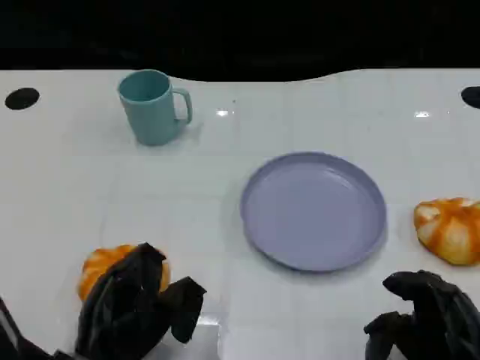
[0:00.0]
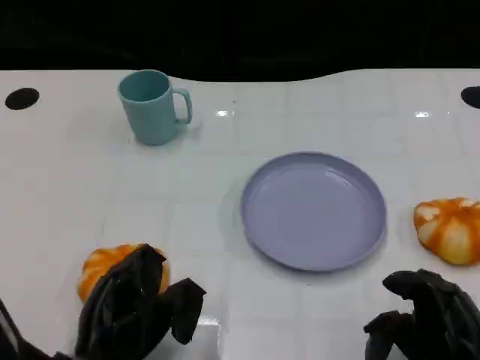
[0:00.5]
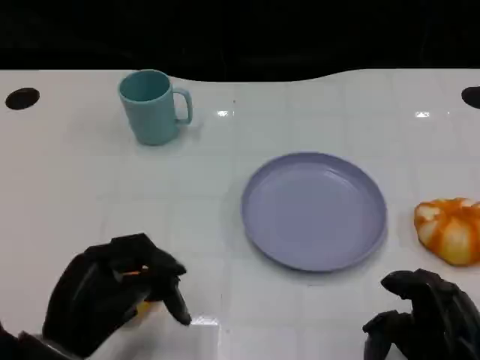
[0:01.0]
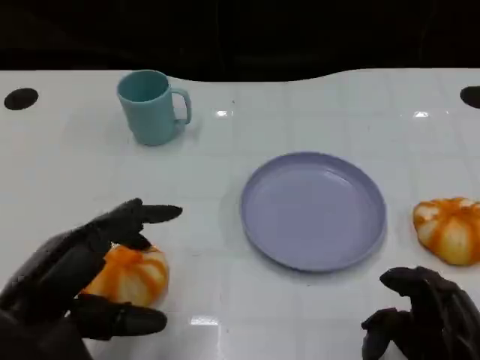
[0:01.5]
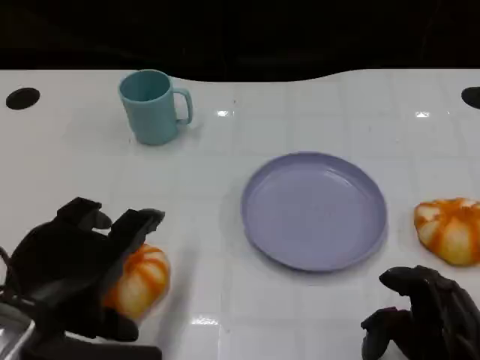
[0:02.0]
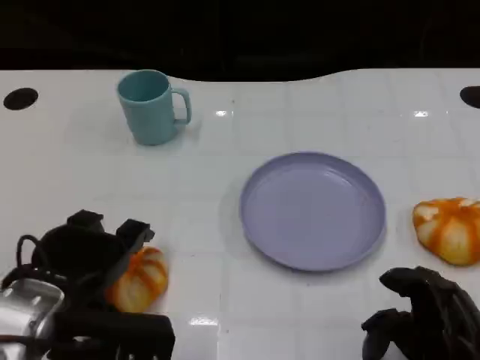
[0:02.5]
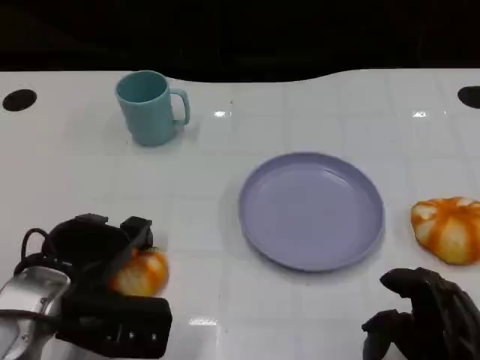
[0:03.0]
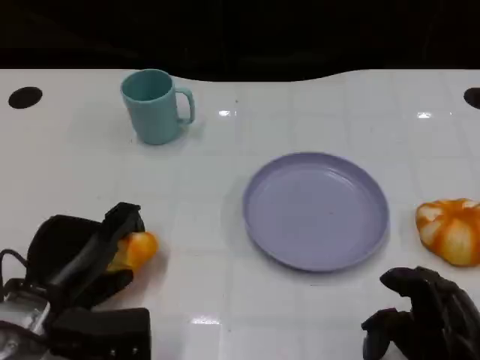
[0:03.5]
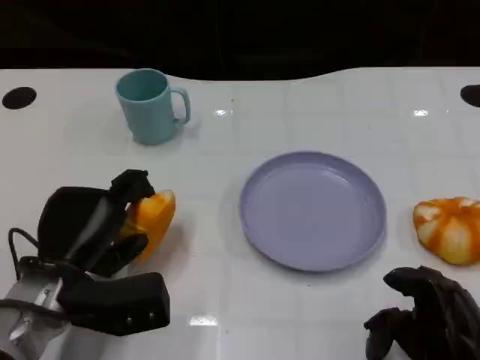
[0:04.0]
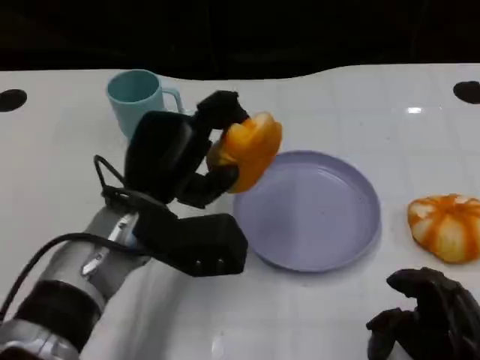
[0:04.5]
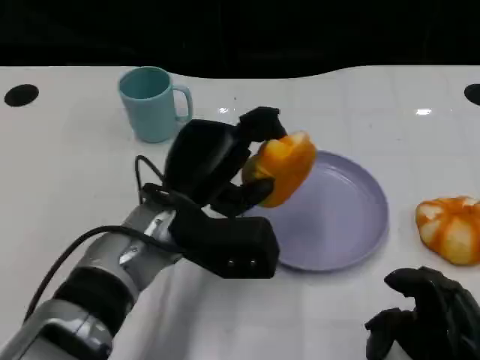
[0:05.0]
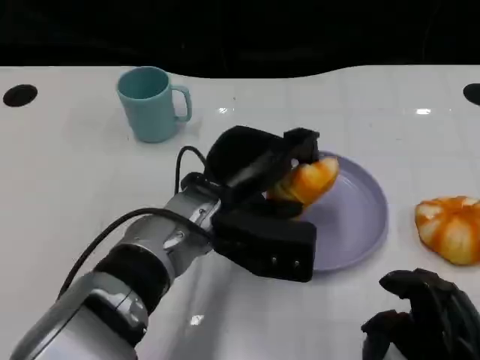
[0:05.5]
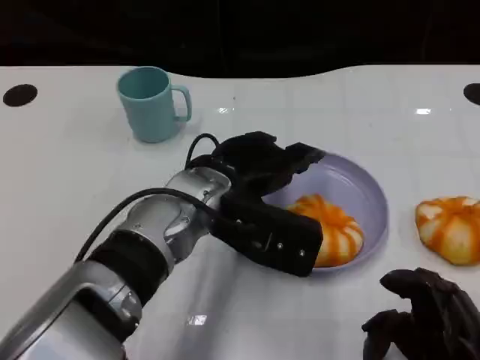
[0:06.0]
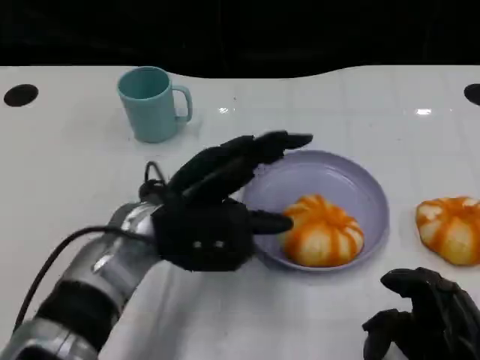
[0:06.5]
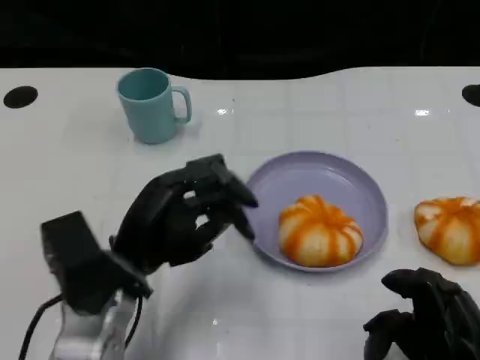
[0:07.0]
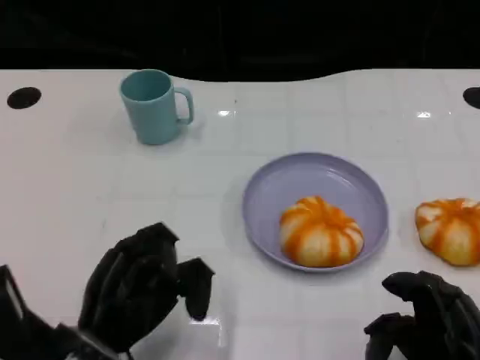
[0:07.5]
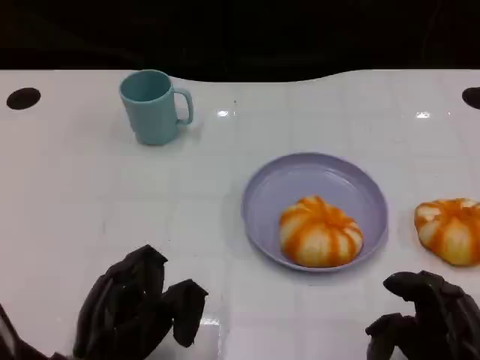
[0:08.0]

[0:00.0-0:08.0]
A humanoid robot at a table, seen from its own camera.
Task of the whole recording: Grasp the bread from the table and place it into the plate.
0:00.0 to 0:02.0: The left hand is displaced upward by approximately 10 cm.
0:02.0 to 0:04.0: The left hand moves downward and forward, some 10 cm.
0:04.0 to 0:06.0: The left hand moves to the right and upward, roughly 15 cm.
0:06.0 to 0:08.0: The left hand travels backward, to the left and downward by roughly 20 cm.

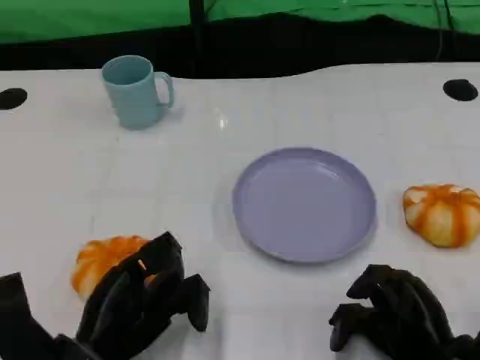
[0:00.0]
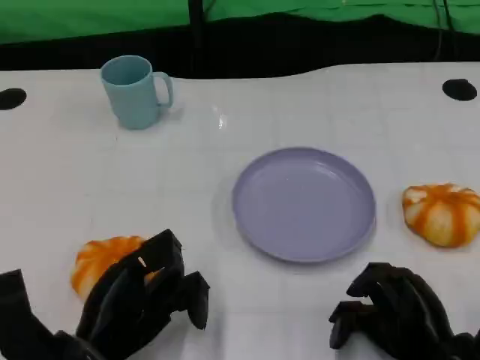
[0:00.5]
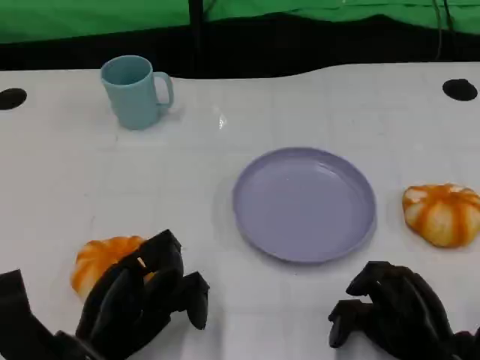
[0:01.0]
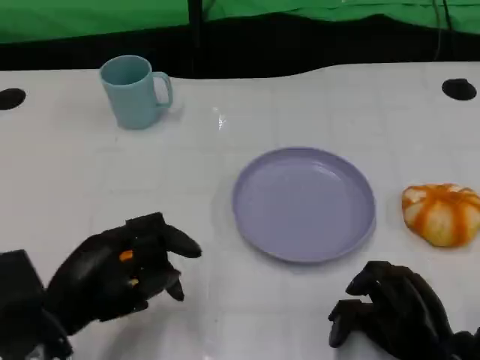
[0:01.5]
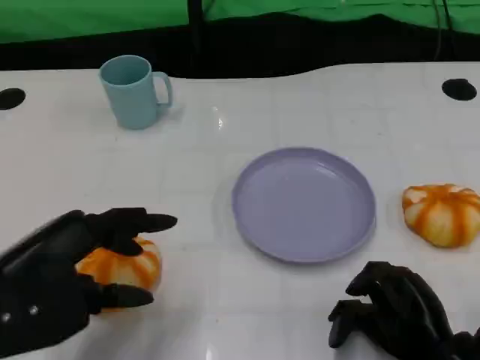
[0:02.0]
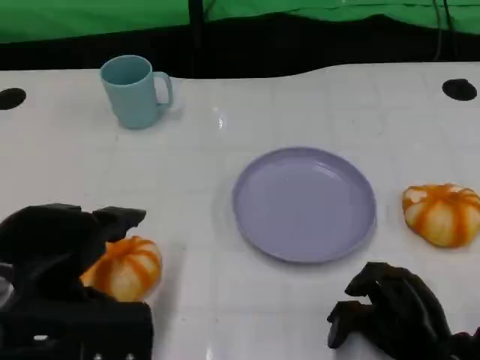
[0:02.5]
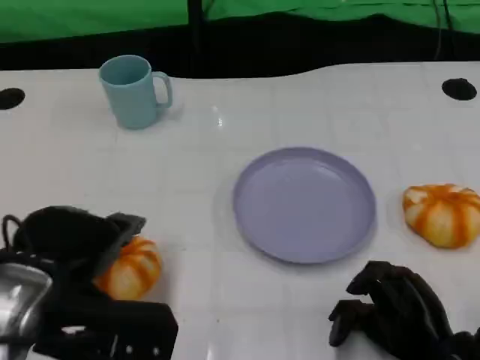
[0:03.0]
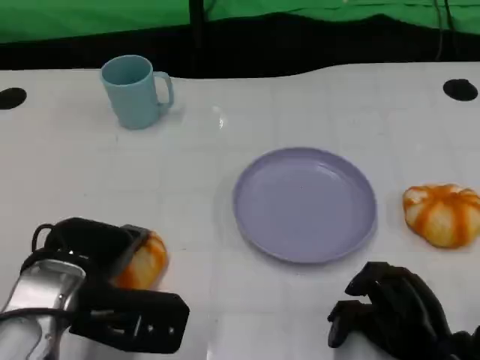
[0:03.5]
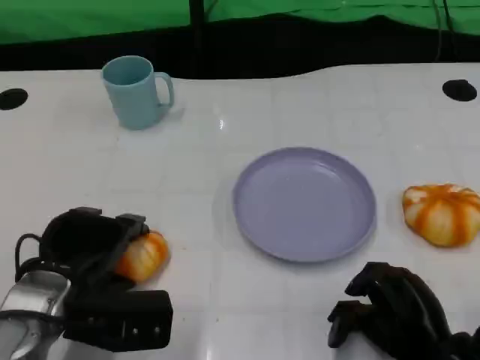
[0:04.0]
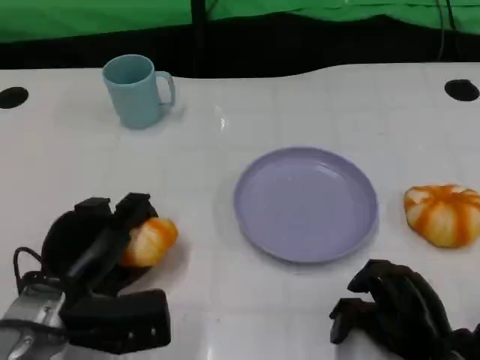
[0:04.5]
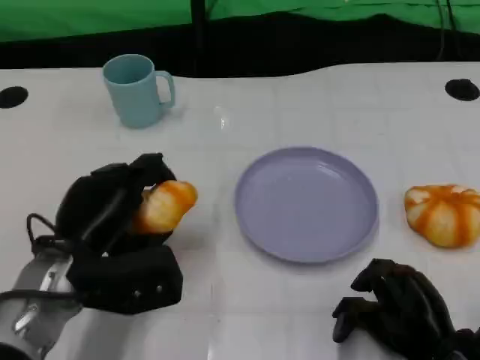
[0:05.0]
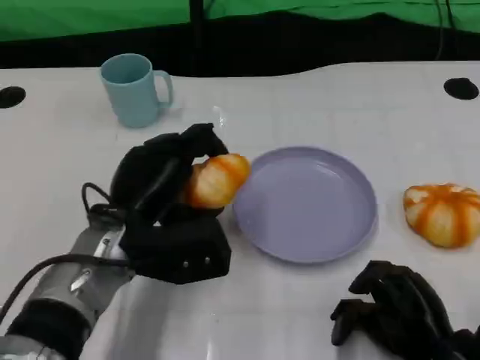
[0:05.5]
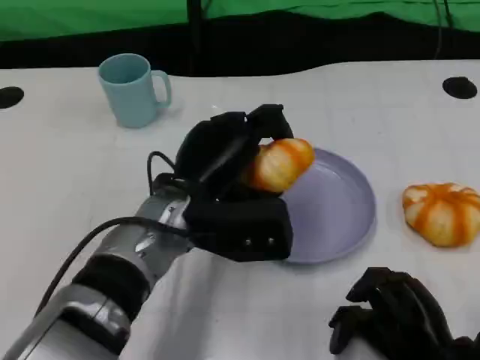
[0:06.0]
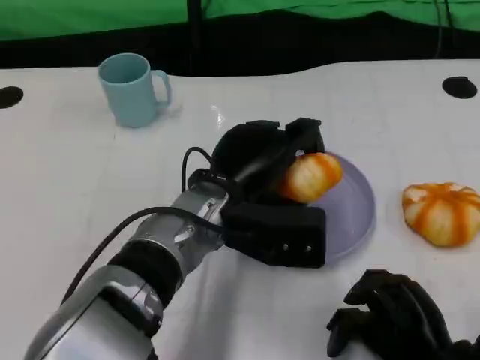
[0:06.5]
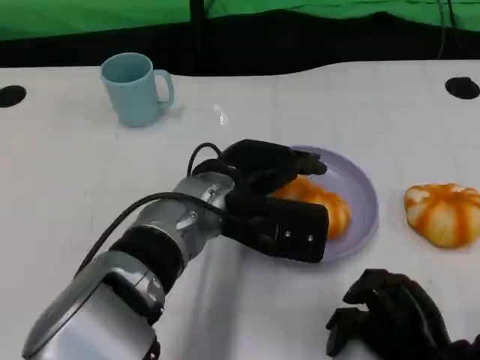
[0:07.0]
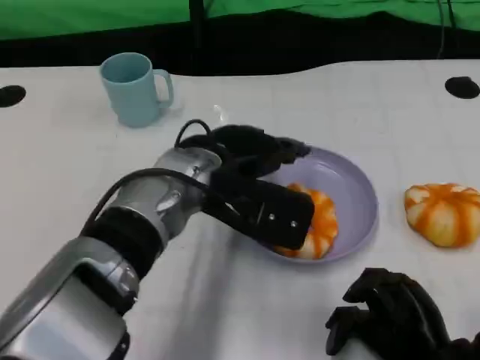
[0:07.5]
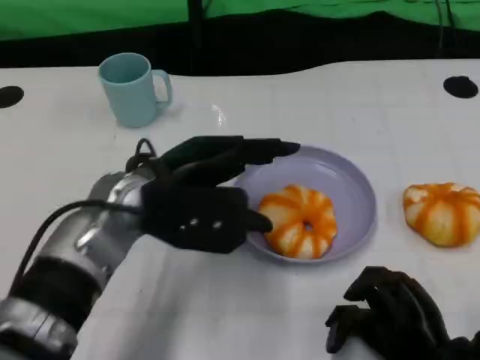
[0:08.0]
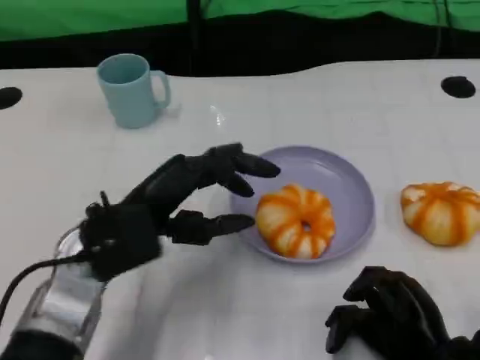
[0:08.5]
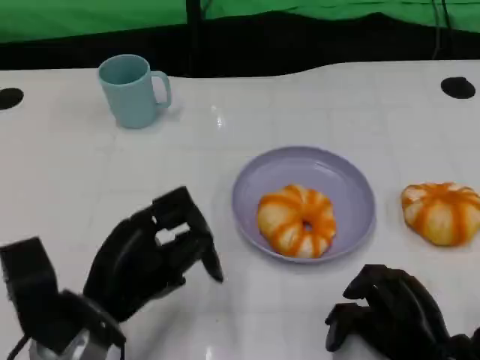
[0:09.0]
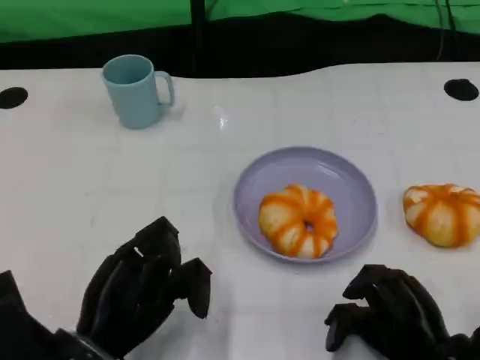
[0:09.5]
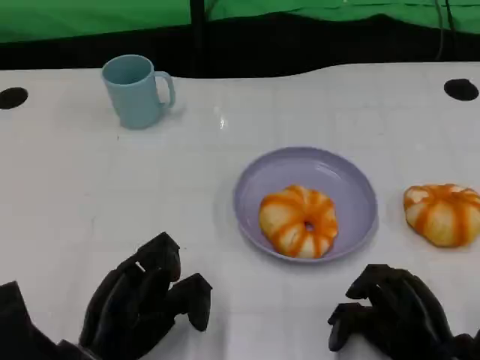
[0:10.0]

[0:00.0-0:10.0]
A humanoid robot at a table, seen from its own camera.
Task of the whole recording: Grasp the bread from the table and place it into the plate.
0:00.0 to 0:02.0: The left hand is displaced upward and to the left by approximately 15 cm.
0:02.0 to 0:04.0: The left hand heads downward and forward, covering about 10 cm.
0:04.0 to 0:06.0: The left hand moves to the right and forward, about 15 cm.
0:06.0 to 0:08.0: The left hand shifts approximately 5 cm to the left.
0:08.0 to 0:10.0: The left hand moves backward, downward and to the left, some 15 cm.

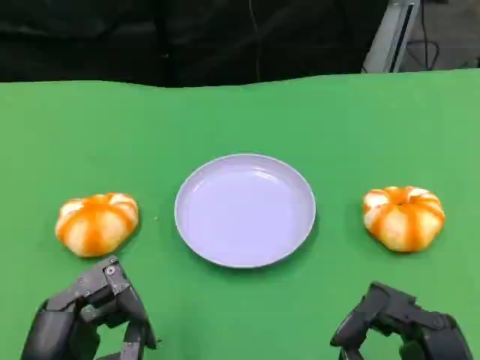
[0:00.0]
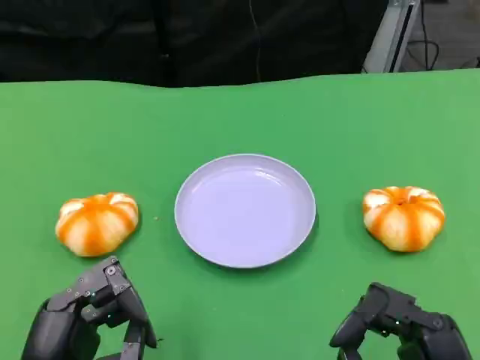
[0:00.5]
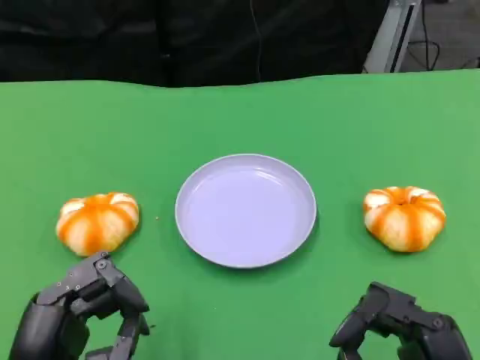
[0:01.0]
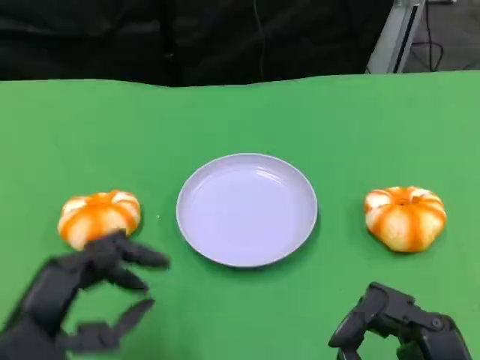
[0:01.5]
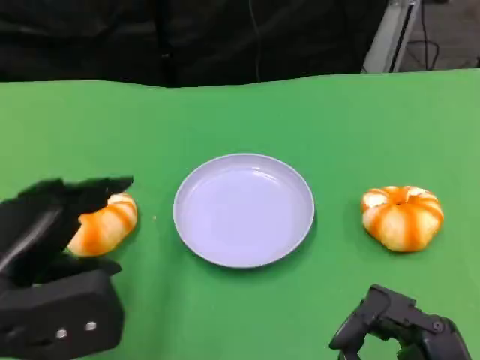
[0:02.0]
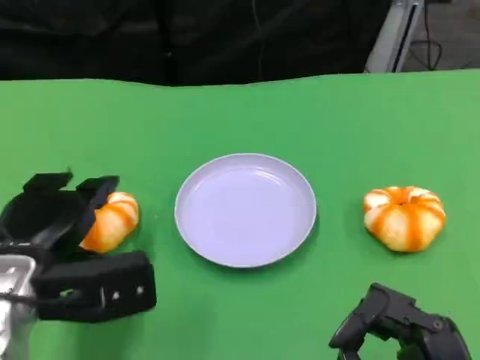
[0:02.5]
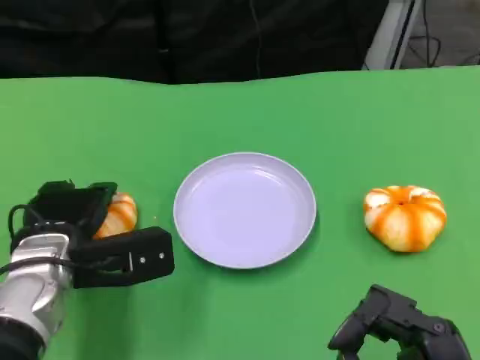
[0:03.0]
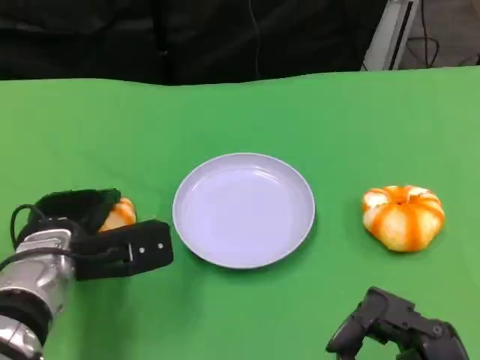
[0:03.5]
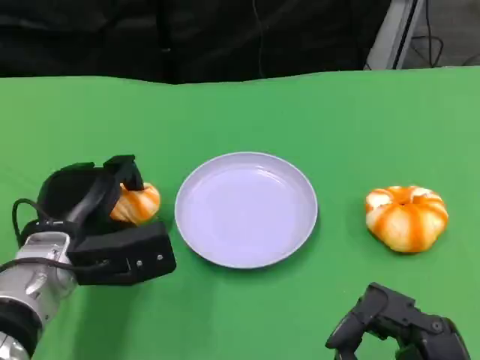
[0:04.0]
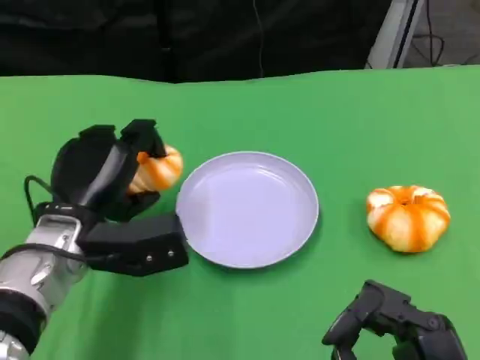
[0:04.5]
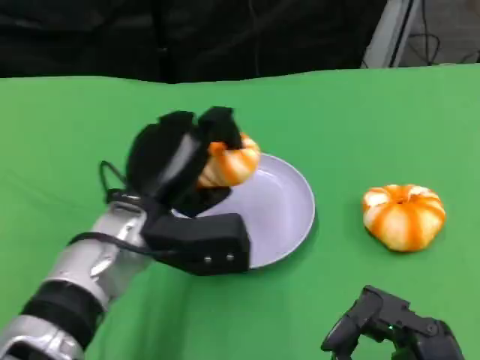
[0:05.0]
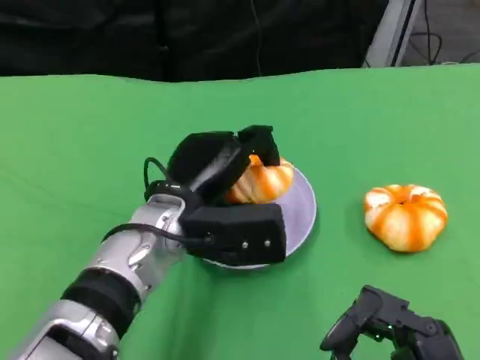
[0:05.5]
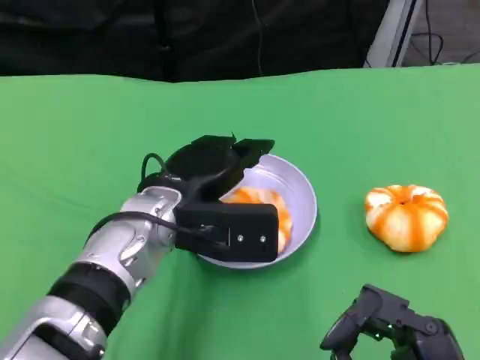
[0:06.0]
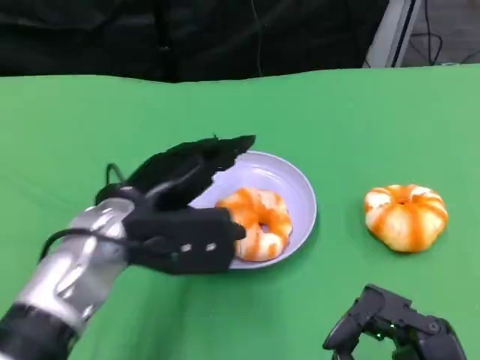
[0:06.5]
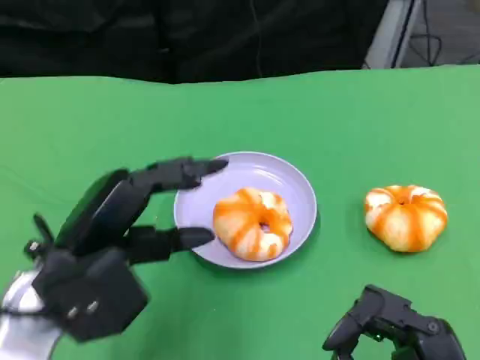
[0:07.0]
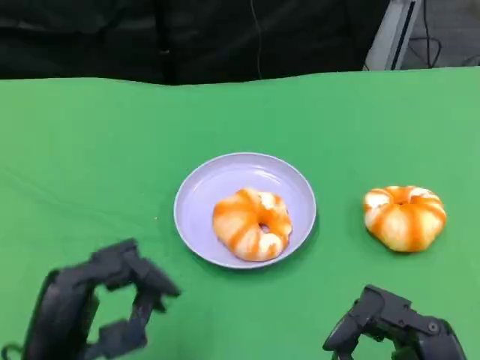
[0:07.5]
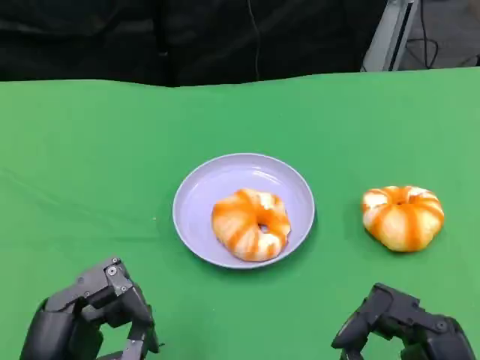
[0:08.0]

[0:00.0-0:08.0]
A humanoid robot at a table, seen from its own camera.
Task of the whole recording: Grasp the bread from the table and place it into the plate.
0:00.0 to 0:02.0: The left hand goes some 10 cm forward and upward.
0:02.0 to 0:04.0: The left hand travels forward and downward by approximately 10 cm.
0:04.0 to 0:06.0: The left hand heads to the right and upward, covering roughly 10 cm.
0:06.0 to 0:08.0: The left hand goes approximately 20 cm backward and to the left.
